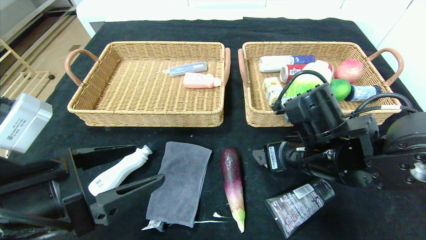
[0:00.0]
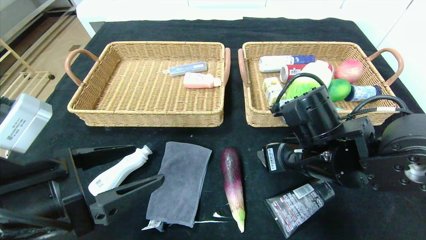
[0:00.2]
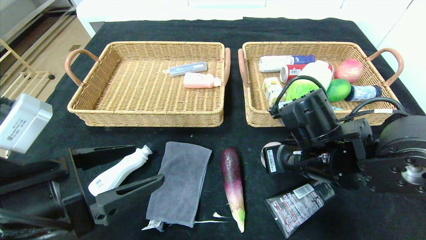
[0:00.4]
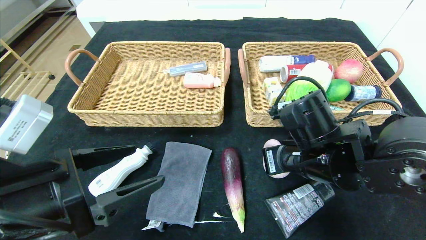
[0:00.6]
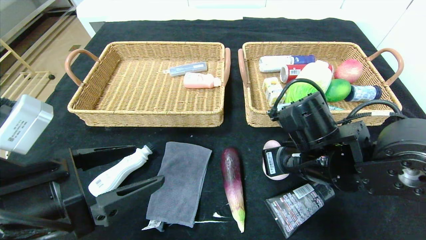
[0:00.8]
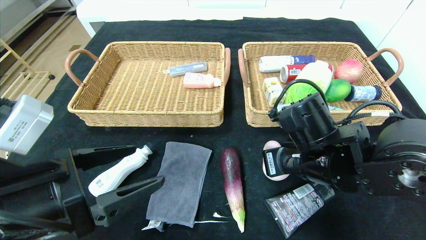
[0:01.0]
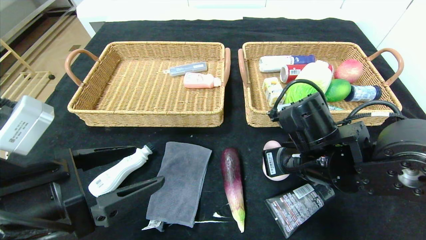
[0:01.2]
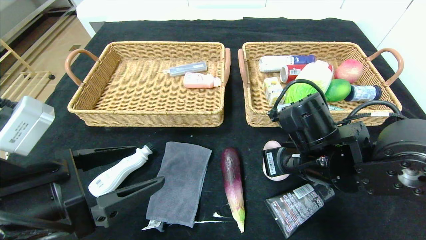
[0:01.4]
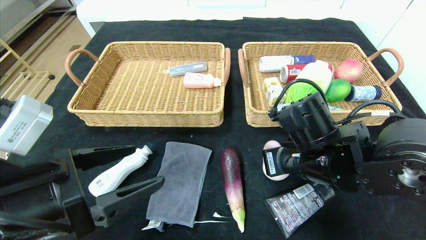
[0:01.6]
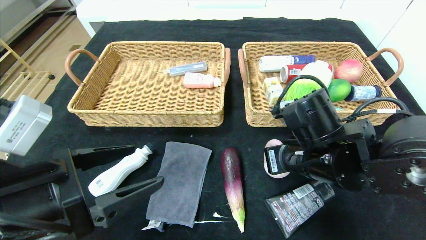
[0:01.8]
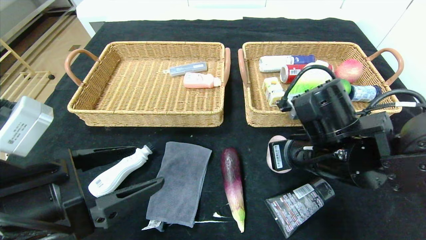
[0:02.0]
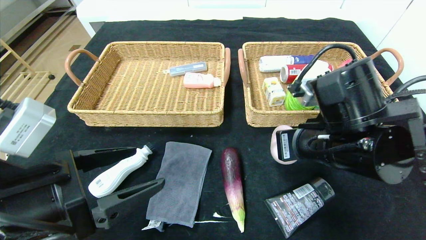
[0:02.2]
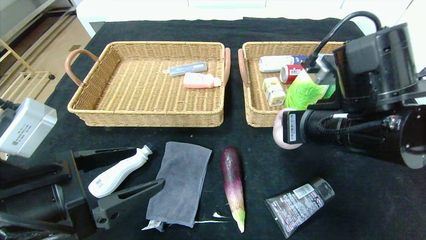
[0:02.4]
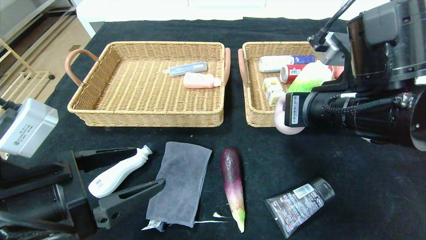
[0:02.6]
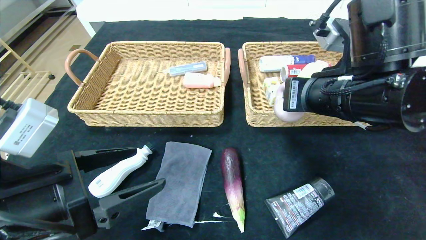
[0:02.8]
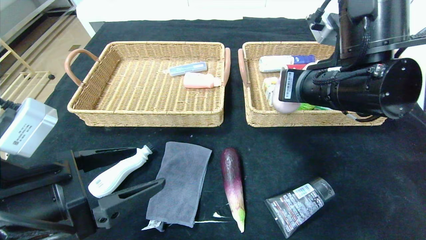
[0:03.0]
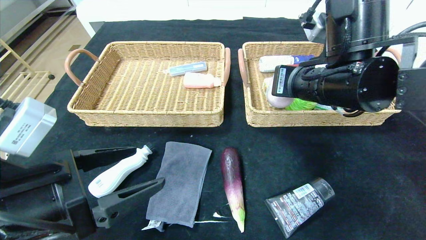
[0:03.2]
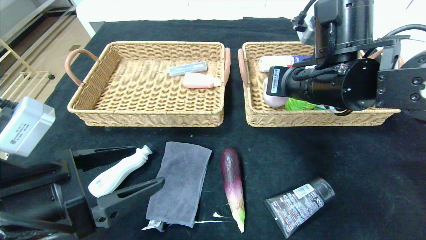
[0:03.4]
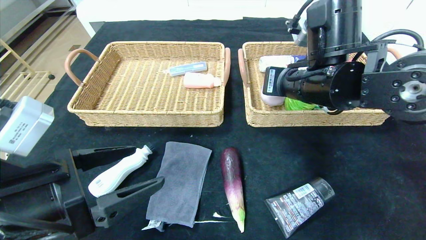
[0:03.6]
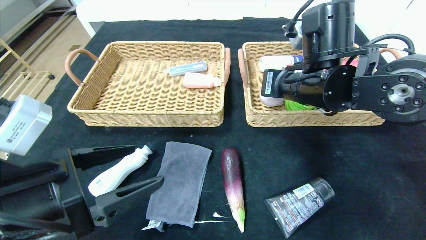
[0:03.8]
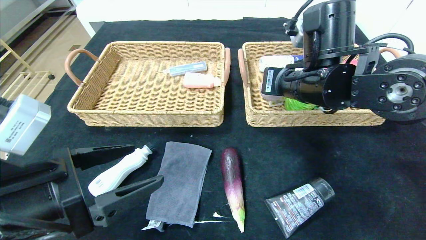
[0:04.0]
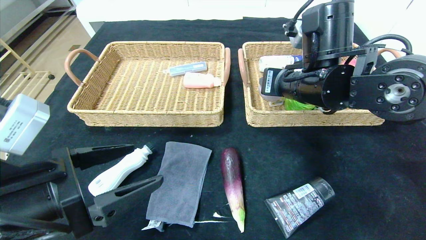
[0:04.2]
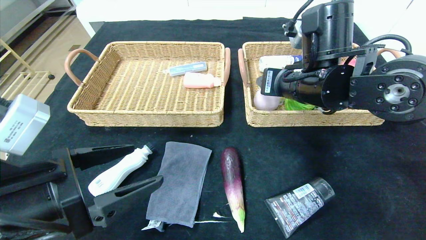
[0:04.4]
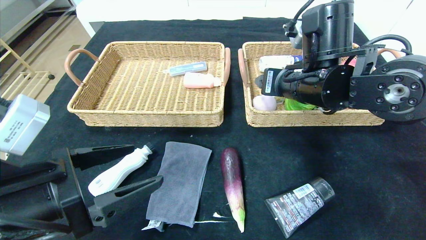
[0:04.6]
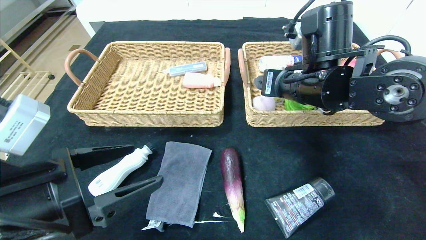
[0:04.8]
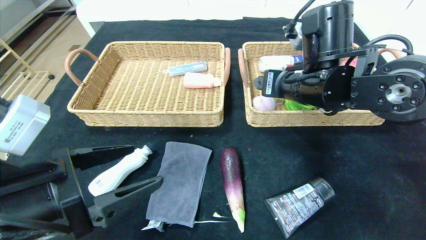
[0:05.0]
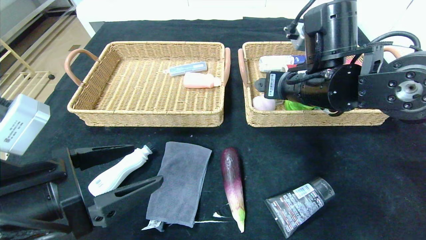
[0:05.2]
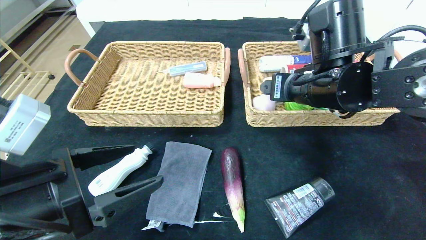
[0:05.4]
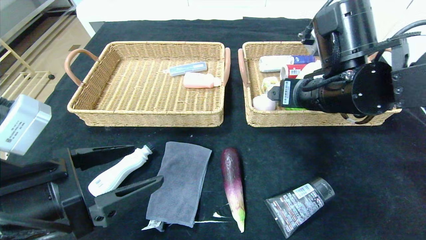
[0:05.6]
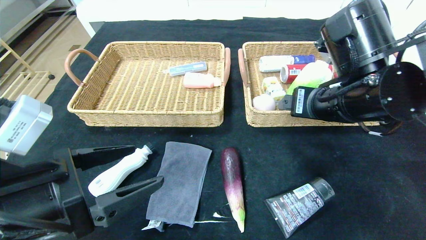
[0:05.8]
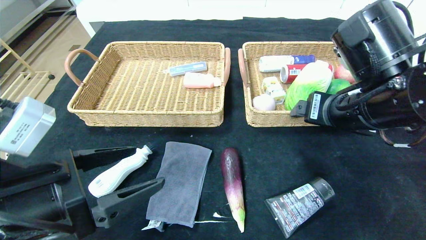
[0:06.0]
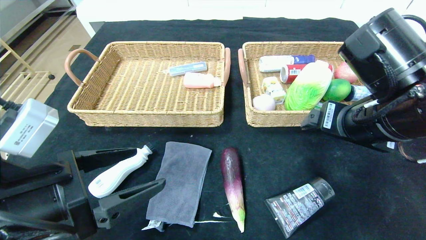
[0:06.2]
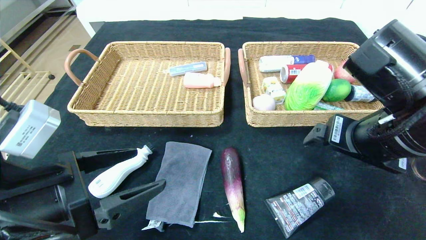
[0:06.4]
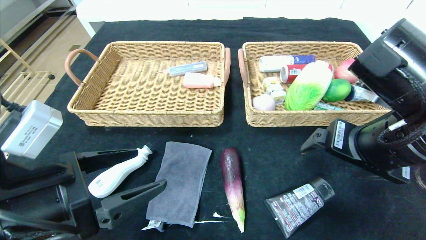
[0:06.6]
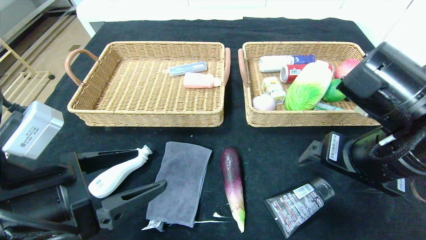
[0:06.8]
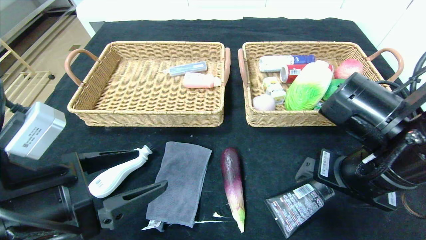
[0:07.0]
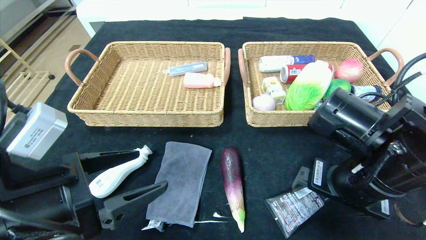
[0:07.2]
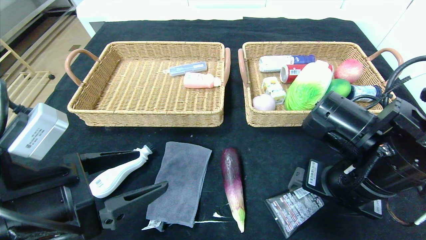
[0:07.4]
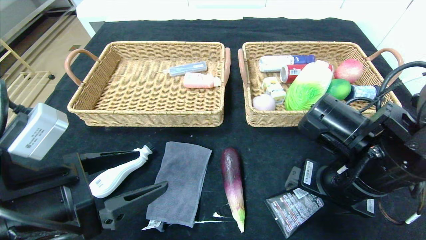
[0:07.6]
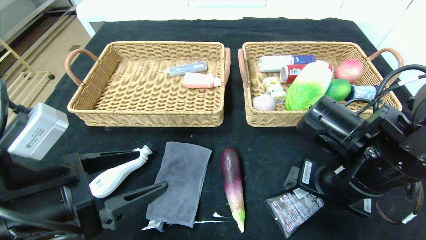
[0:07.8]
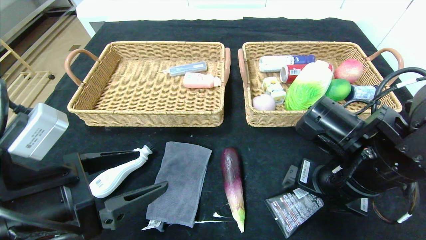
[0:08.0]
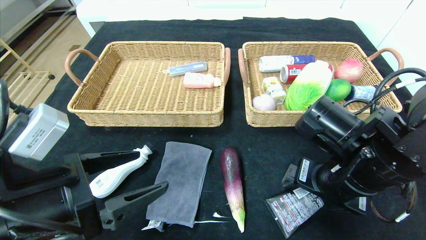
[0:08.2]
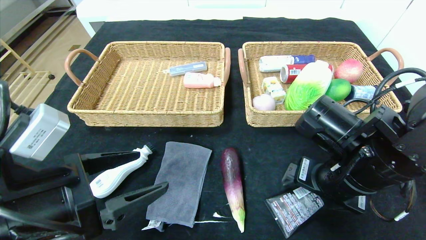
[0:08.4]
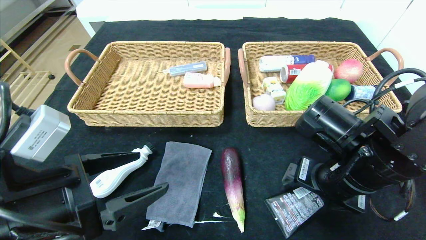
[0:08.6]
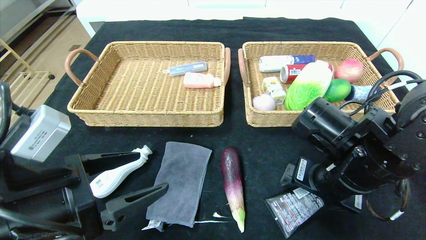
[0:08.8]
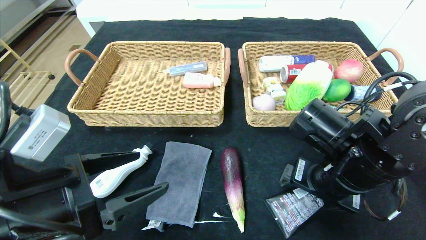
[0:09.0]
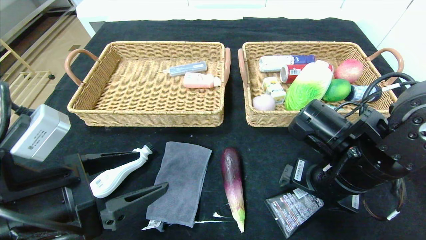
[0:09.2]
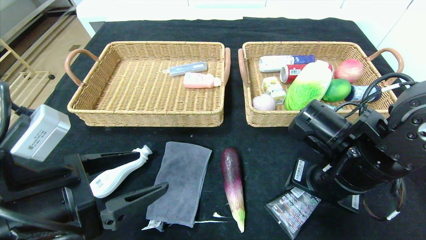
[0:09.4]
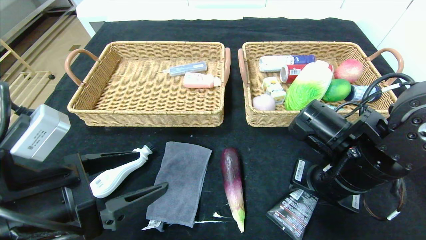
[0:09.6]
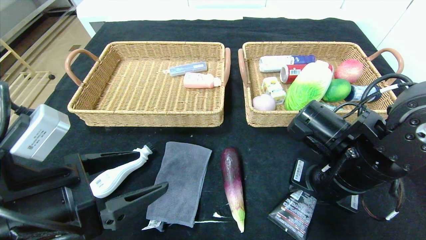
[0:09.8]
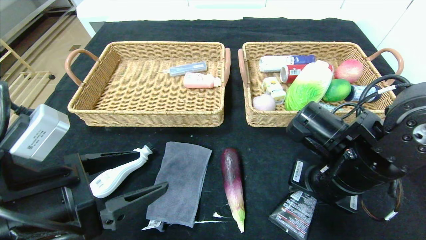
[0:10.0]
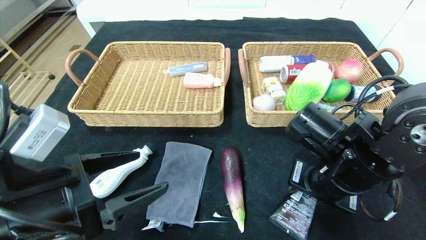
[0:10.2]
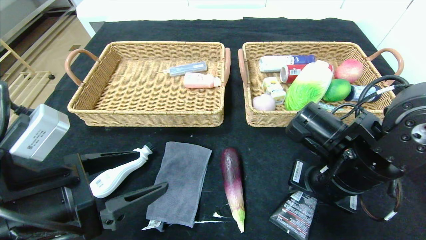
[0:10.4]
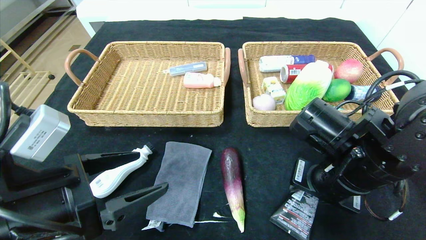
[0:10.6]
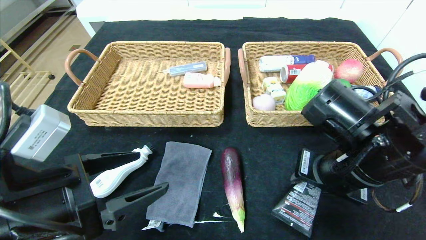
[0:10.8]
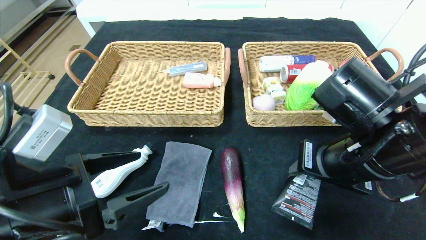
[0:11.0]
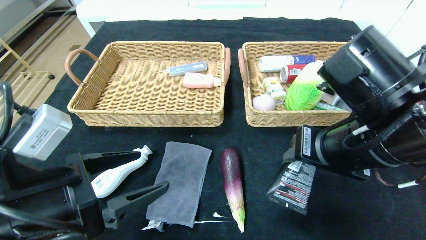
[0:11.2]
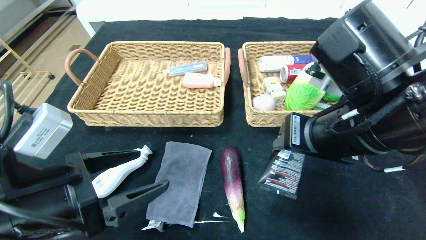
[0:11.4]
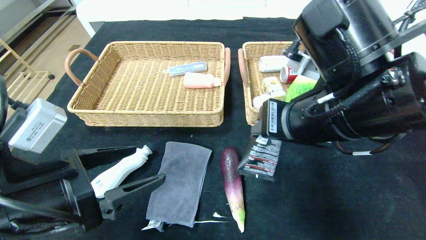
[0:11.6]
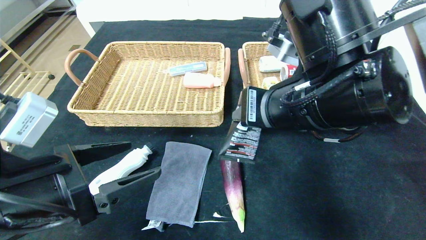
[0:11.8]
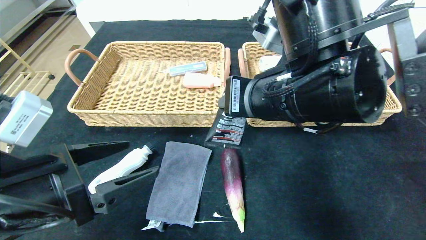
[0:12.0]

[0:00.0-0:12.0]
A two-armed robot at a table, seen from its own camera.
Step, 0.0 to 6.6 s: Pick up the peach and put it in the right basket.
0.0 to 1.6 s: The right gripper closes.
1.6 to 3.0 s: The right gripper goes about 10 cm upward.
3.0 to 4.4 s: The right gripper heads forward, covering about 5 cm, and opens.
4.4 to 6.0 s: The right gripper goes some 10 cm backward.
6.0 to 7.6 s: The right gripper travels downward by some 5 cm.
7.6 to 9.0 s: The grippers stay close to where they were, moving slightly.
9.0 to 10.4 s: The right gripper closes up.
10.4 to 12.0 s: The right gripper heads upward and to the left, covering approximately 15 cm.

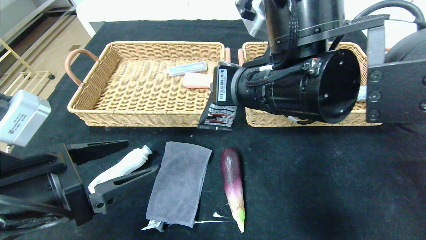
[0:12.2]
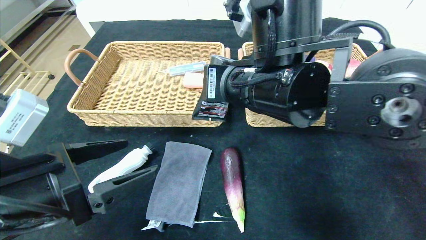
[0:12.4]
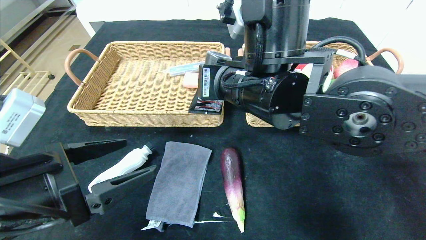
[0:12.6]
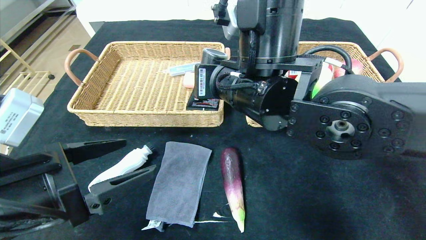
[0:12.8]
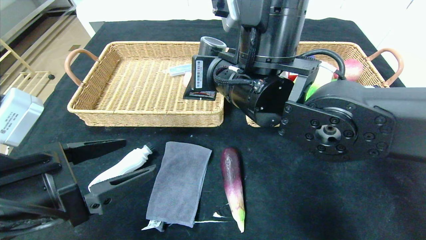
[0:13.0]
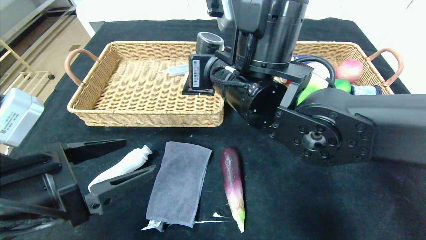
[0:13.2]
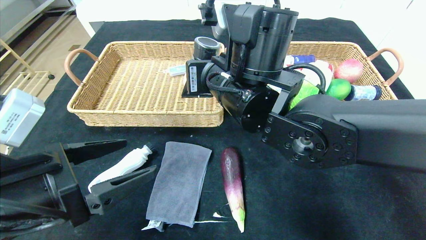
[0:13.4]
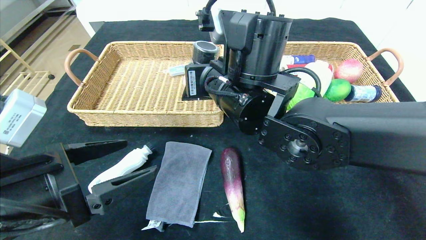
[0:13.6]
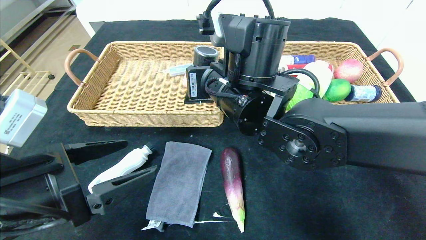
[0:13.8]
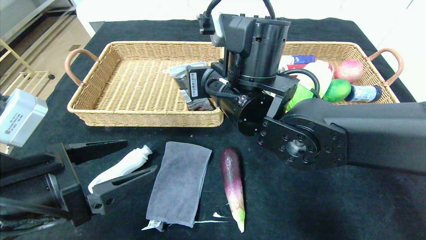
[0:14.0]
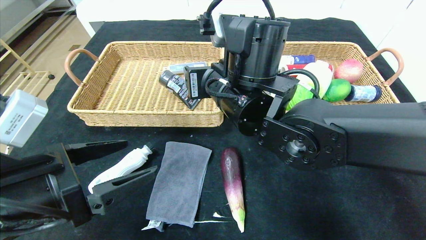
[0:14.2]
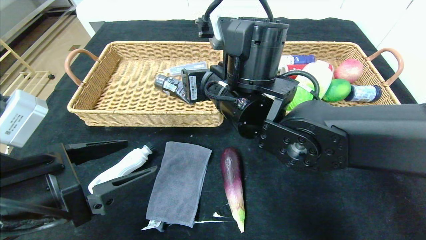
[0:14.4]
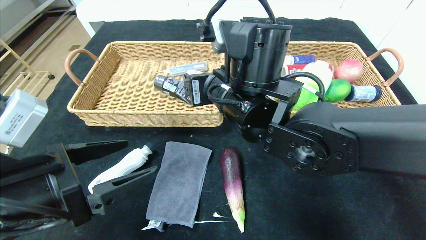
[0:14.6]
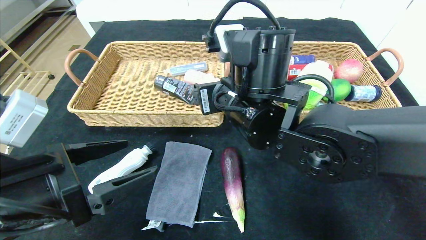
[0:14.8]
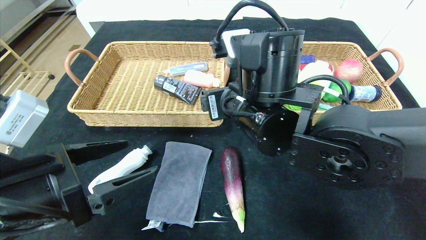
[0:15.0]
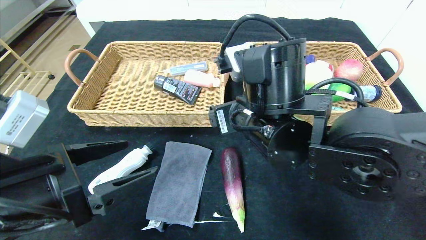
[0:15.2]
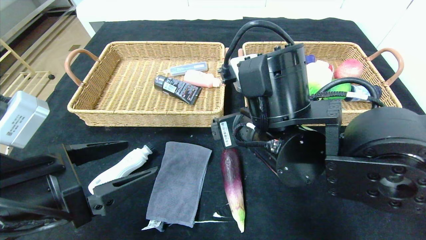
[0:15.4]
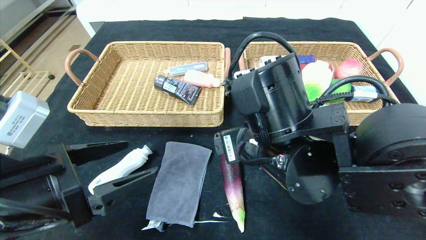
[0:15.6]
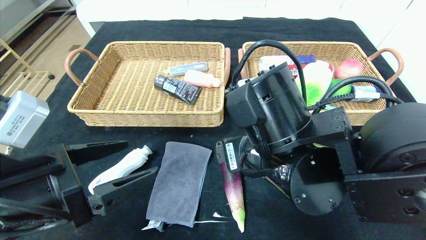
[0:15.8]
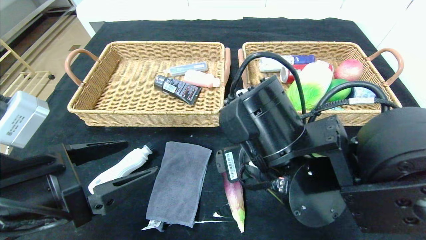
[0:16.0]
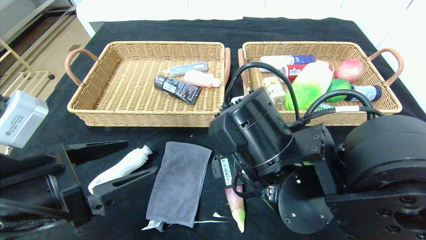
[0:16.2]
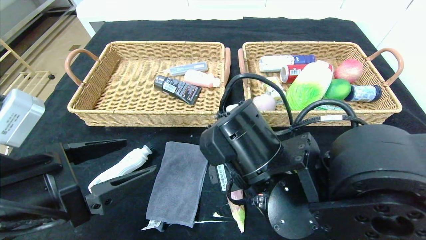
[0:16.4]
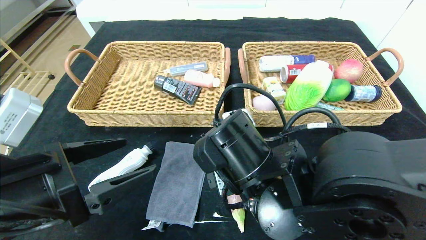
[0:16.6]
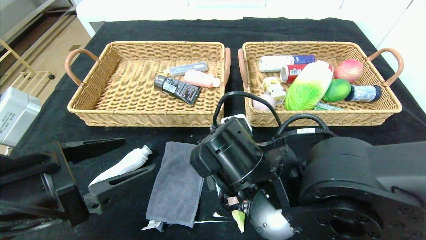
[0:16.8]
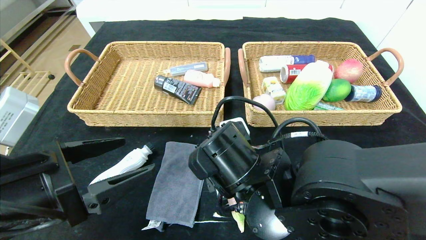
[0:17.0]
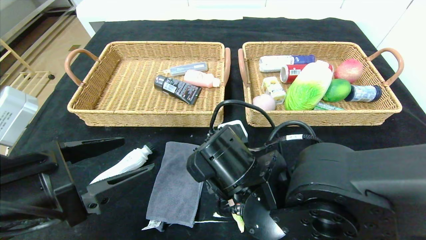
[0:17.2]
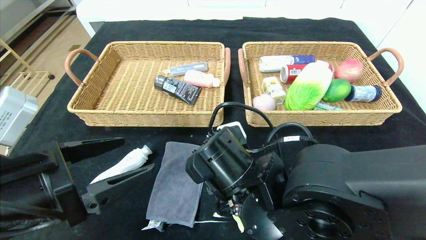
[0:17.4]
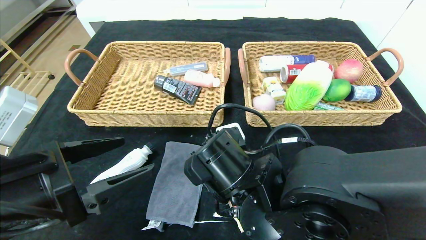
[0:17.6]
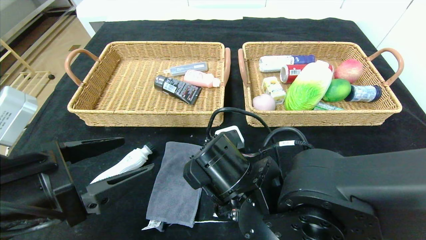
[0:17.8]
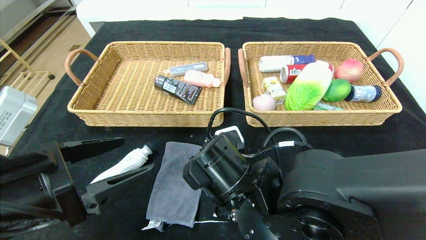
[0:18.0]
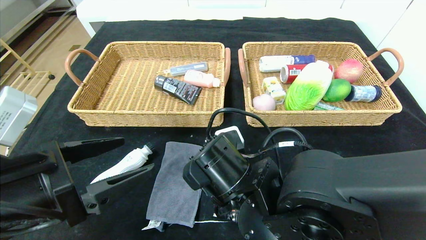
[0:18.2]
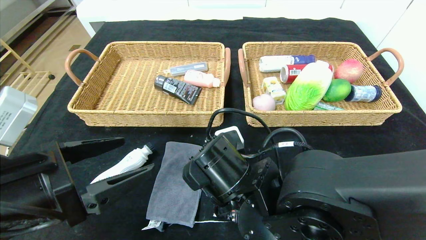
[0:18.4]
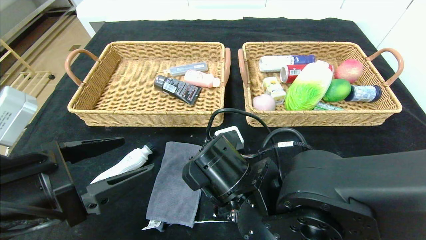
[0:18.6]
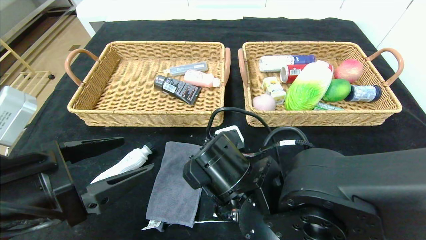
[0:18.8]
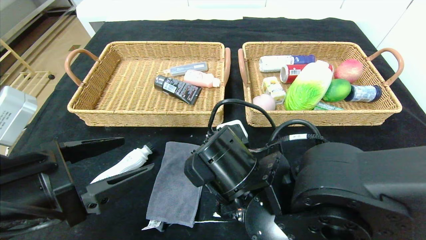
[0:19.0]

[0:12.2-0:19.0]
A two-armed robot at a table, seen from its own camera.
12.2 to 13.6 s: The right gripper changes place by approximately 5 cm.
13.6 to 15.0 s: The right gripper opens.
15.0 to 16.2 s: The right gripper travels backward by some 5 cm.
16.2 to 17.6 s: The right gripper shifts by roughly 5 cm.
17.6 to 19.0 s: The two grippers keep their place.
